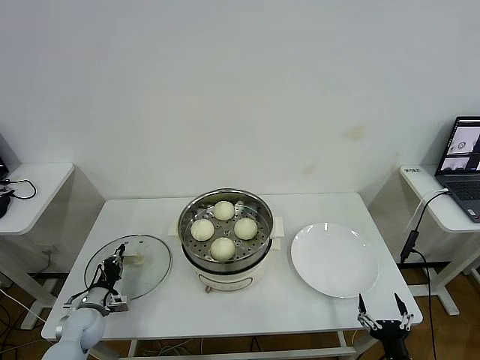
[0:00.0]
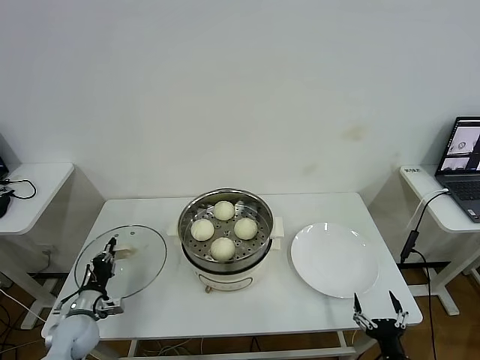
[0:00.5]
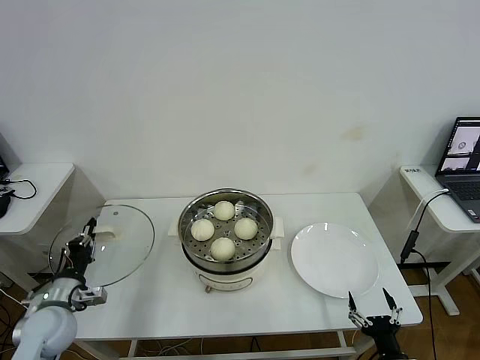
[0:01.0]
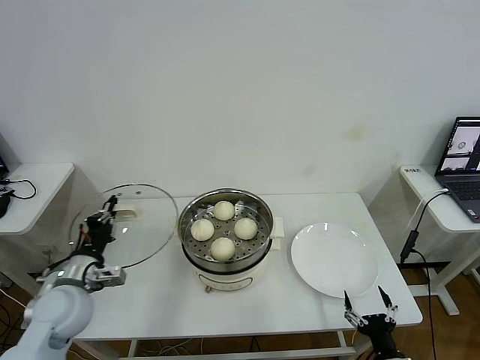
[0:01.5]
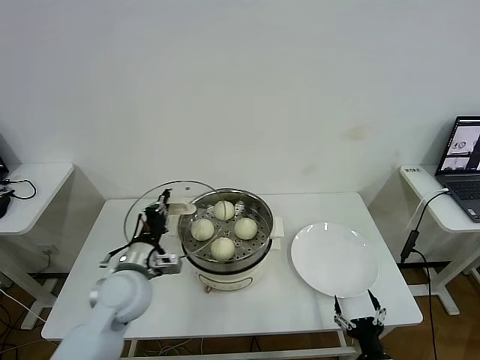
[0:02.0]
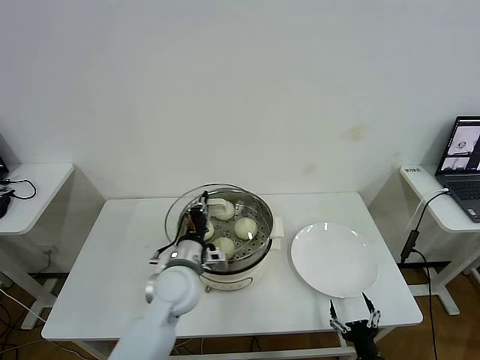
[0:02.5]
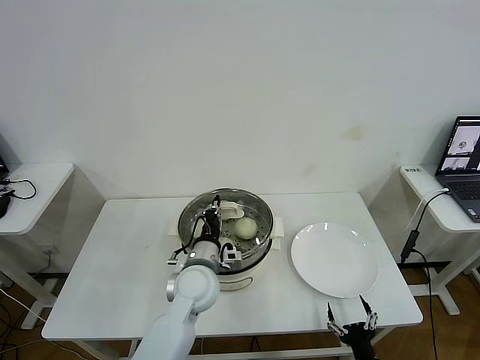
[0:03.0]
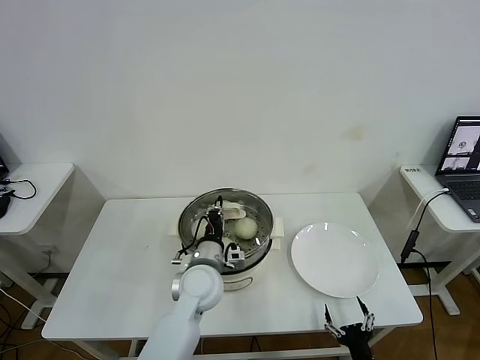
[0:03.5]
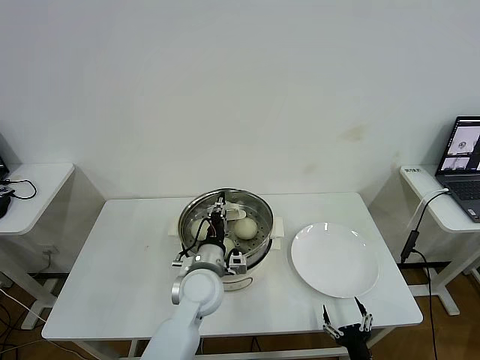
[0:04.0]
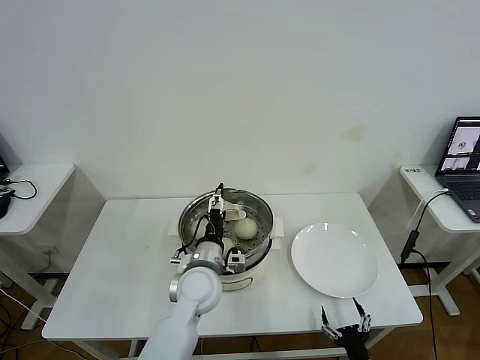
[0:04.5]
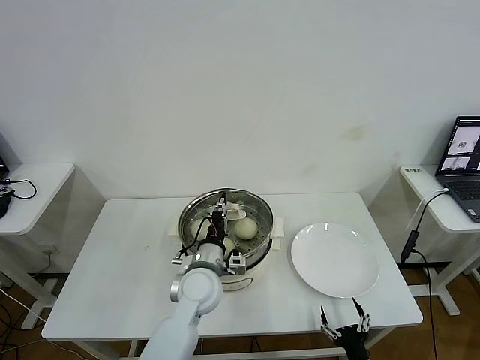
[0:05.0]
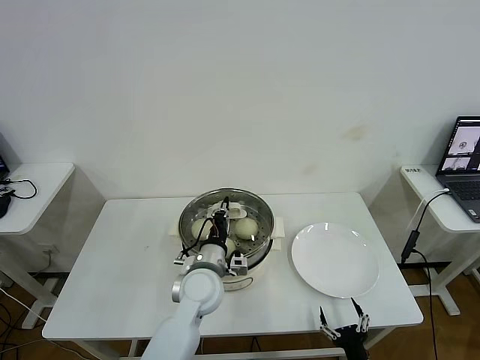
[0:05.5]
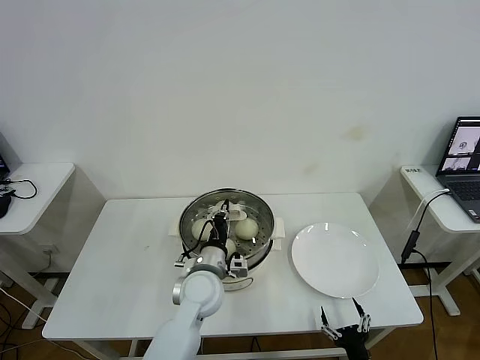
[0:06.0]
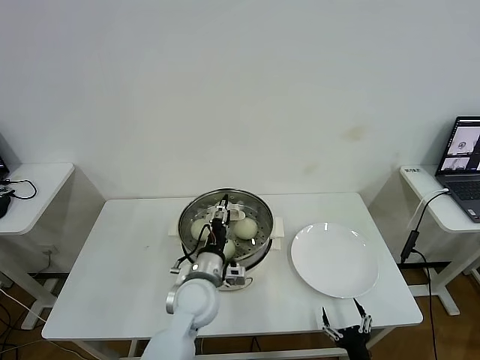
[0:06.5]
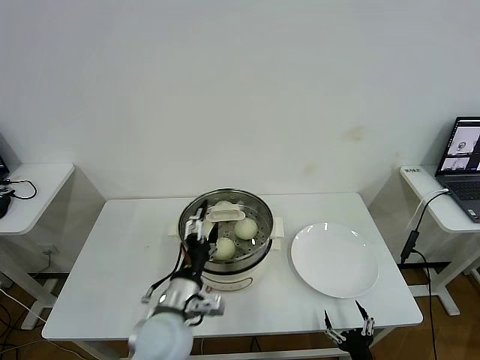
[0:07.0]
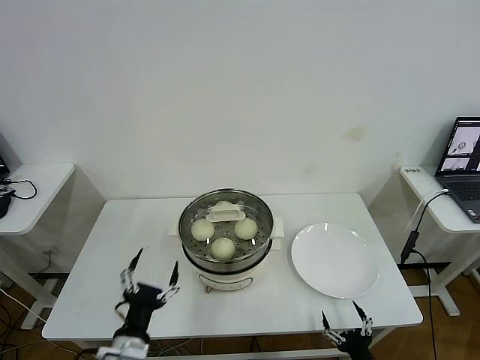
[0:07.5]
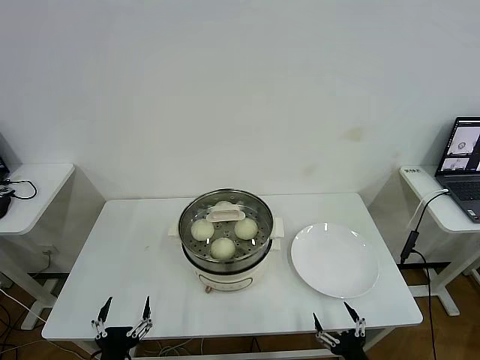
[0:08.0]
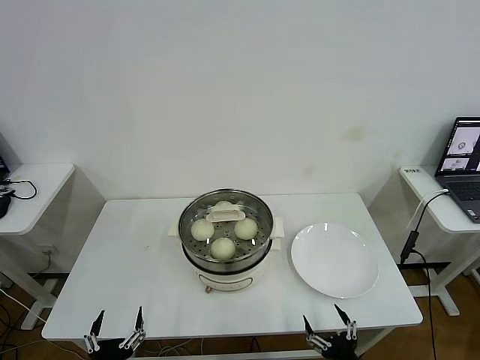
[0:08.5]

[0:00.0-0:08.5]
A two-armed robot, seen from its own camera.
Task of the whole recording: take steamed baozi put them in steamer then cover it.
Step, 0.5 to 6.5 s: Place the pot lid on the steamer with left gripper.
0.0 to 2.0 s: The left gripper shifts some 25 cm upward and to the right.
2.0 to 4.0 s: The left gripper shifts about 15 cm to the right, and opens its fingers.
4.0 to 6.5 s: The left gripper closes, then reopens.
6.5 to 8.5 s: The left gripper is displaced backward and to the left by about 30 cm, and opens up; the right gripper changes place by roughly 5 cm.

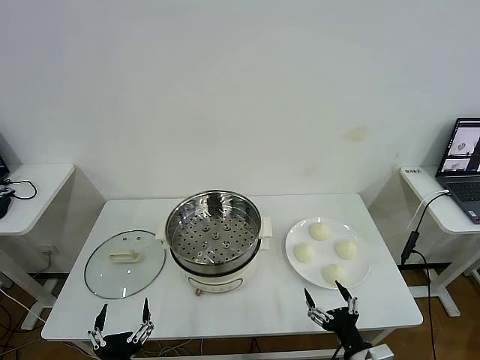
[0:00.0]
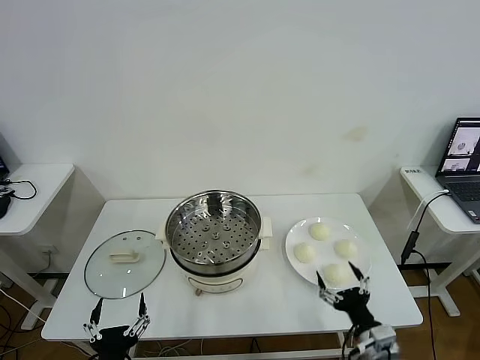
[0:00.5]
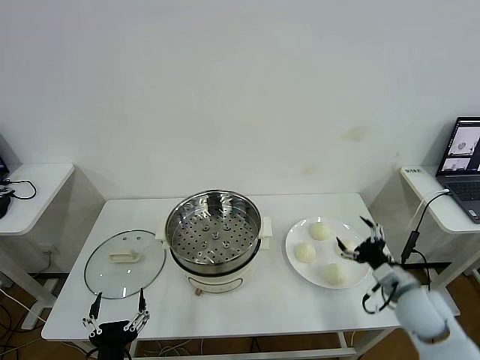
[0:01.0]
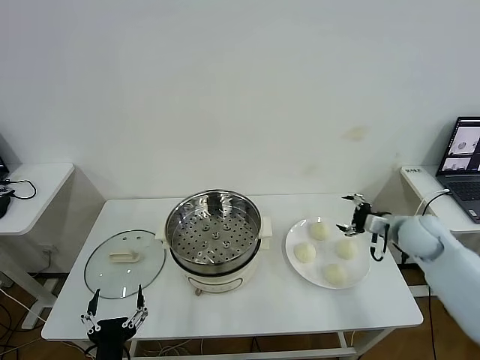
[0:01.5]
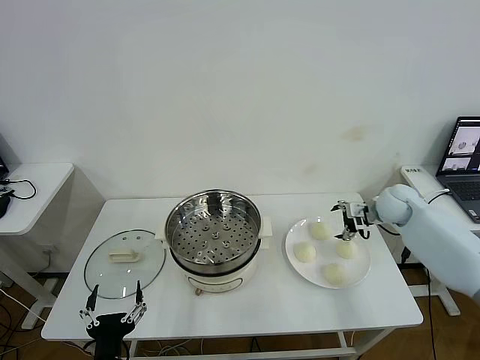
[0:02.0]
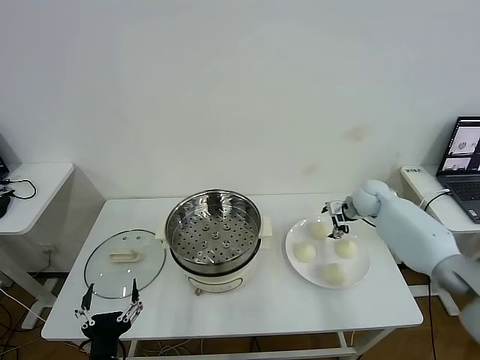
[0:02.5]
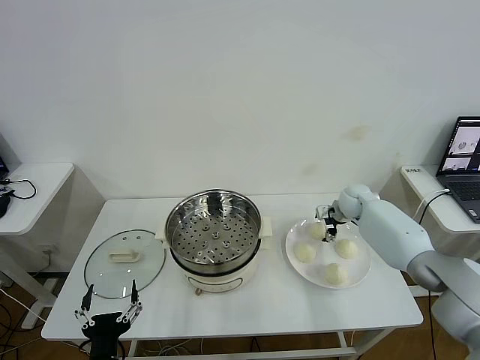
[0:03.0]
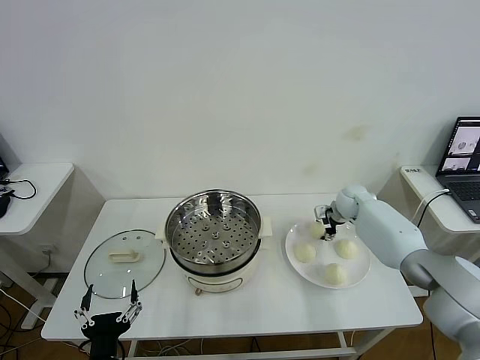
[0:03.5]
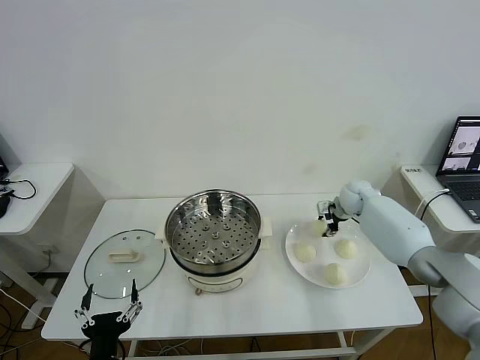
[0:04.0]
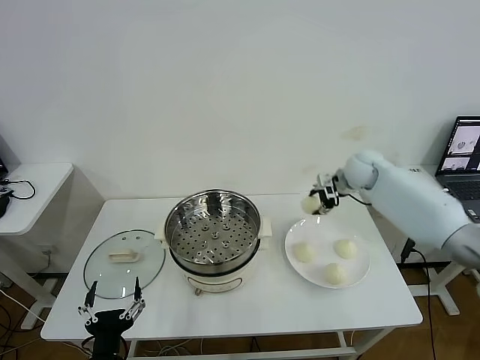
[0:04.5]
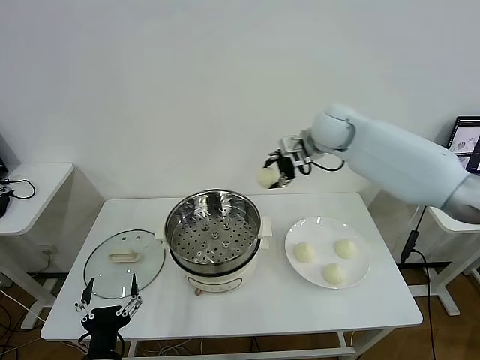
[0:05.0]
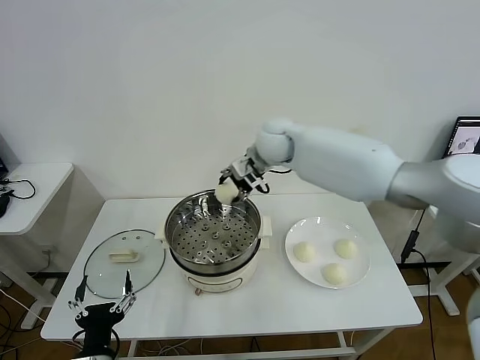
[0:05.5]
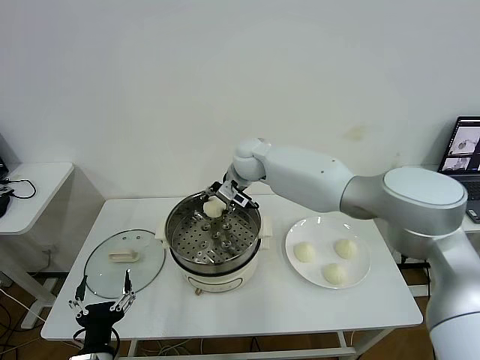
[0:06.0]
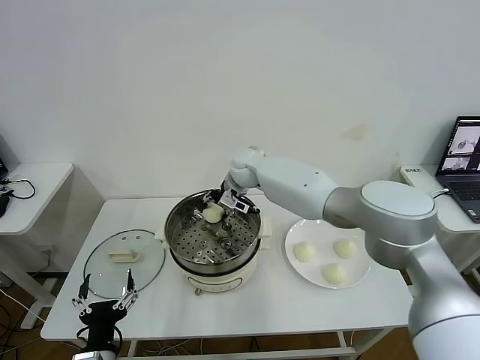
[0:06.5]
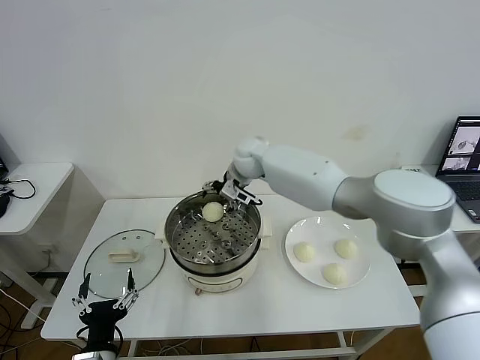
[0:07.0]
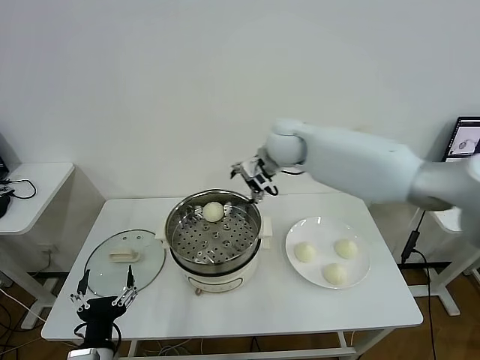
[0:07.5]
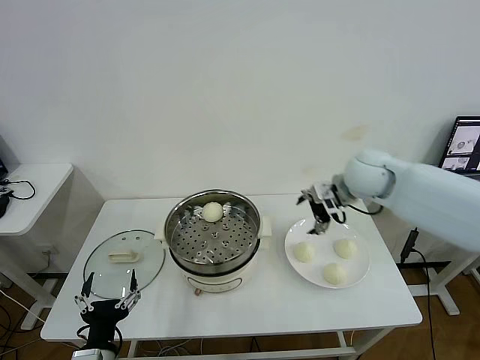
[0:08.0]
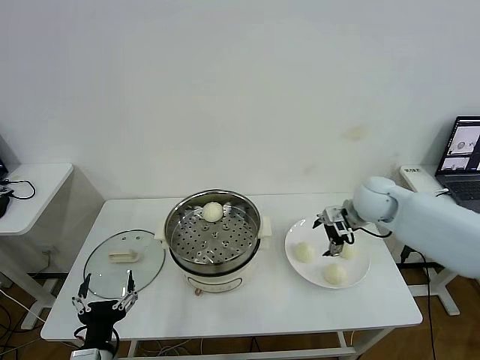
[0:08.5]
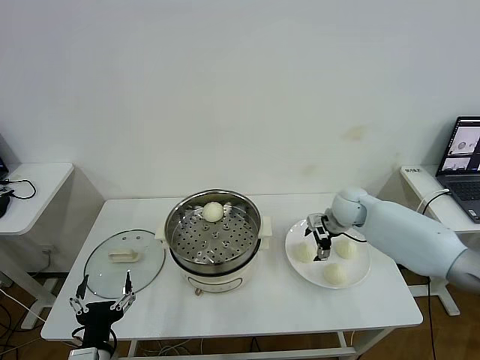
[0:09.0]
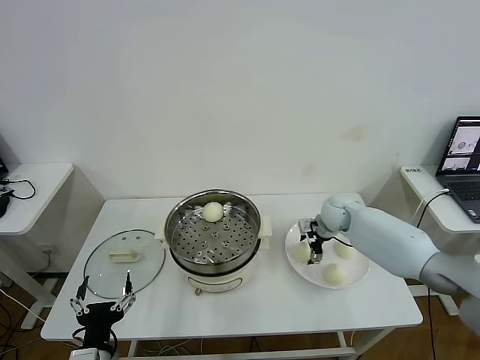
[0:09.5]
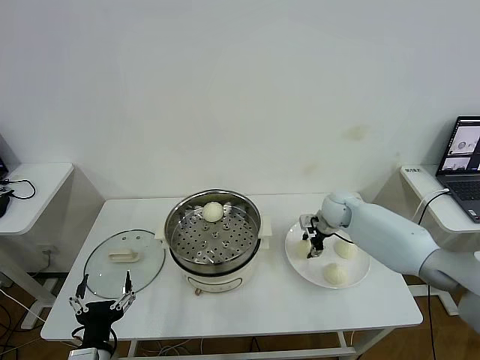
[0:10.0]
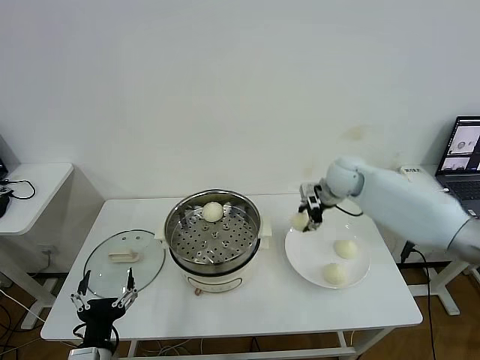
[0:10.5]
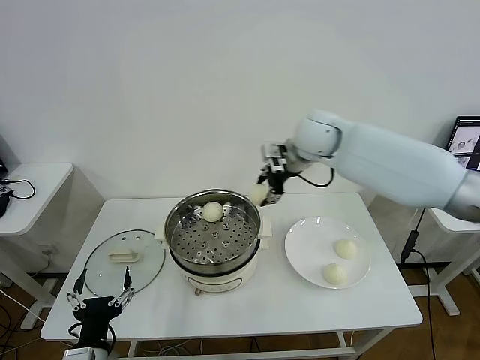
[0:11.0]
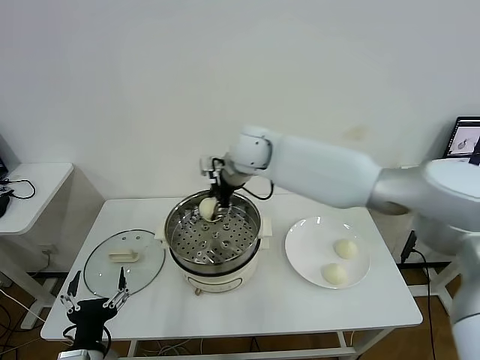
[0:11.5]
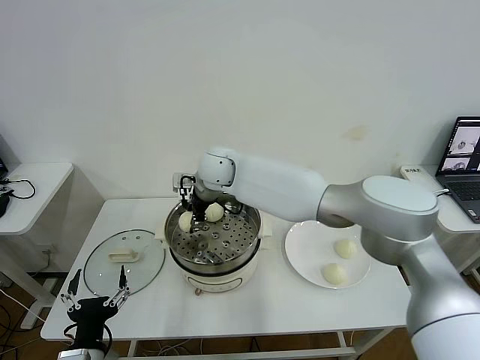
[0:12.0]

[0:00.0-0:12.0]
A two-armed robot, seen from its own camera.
Task of the whole recording: take steamed baozi put them in steamer then cover it.
Step, 0.0 to 3.5 s: Grasp the baozi in the plate with right gripper.
Step, 4.0 to 7.0 s: Place the baozi on the steamer with right gripper.
Step, 7.5 to 9.5 s: Grasp the baozi in the plate with right gripper.
2.0 to 4.0 s: The right gripper travels forward and to the left by roughly 10 cm, and closes its fingers.
4.0 to 6.0 s: The right gripper moves to the left, about 30 cm.
6.0 to 8.0 s: The right gripper moves to the right and backward, some 30 cm, and opens.
8.0 to 10.0 s: The right gripper goes about 15 cm downward and forward, and closes.
10.0 to 12.0 s: The right gripper heads to the left and upward, covering some 35 cm.

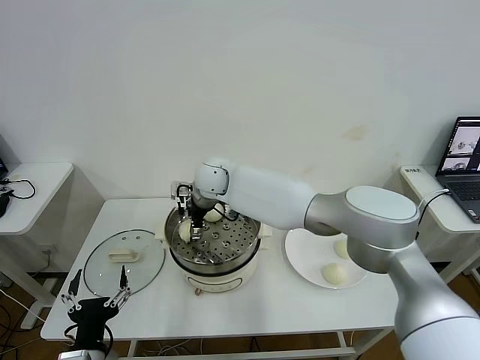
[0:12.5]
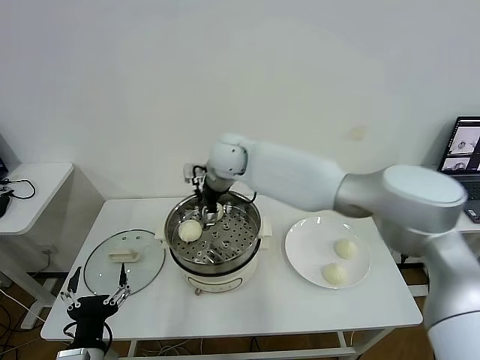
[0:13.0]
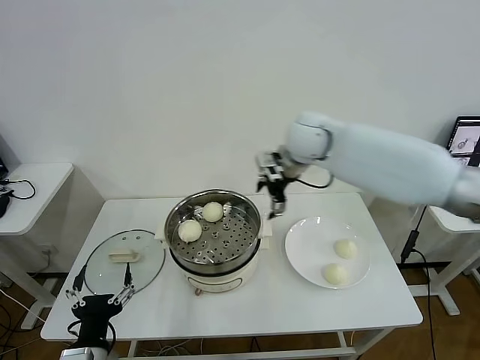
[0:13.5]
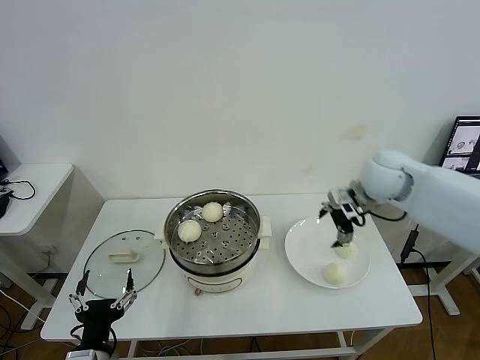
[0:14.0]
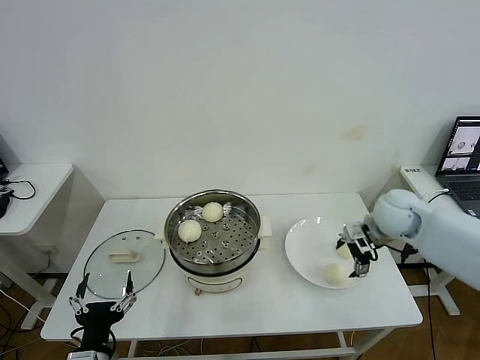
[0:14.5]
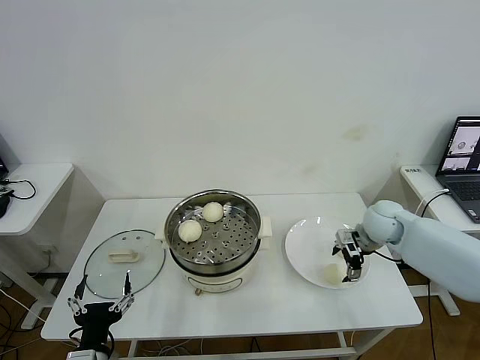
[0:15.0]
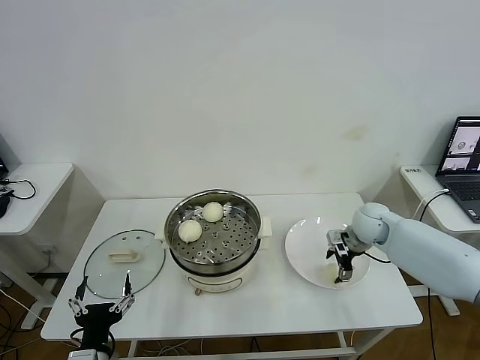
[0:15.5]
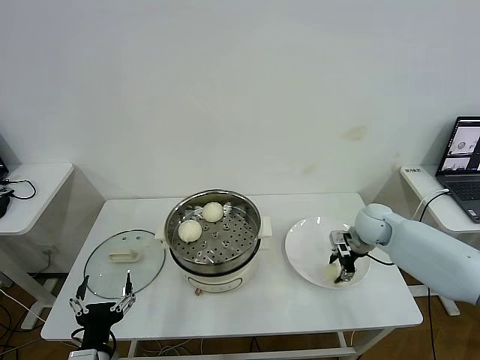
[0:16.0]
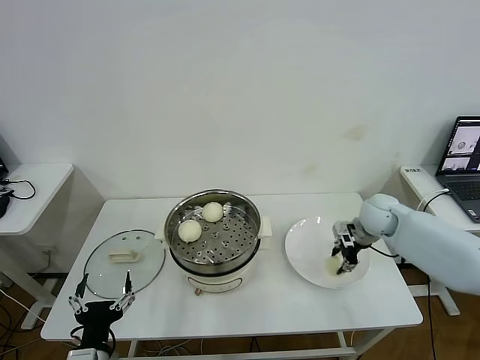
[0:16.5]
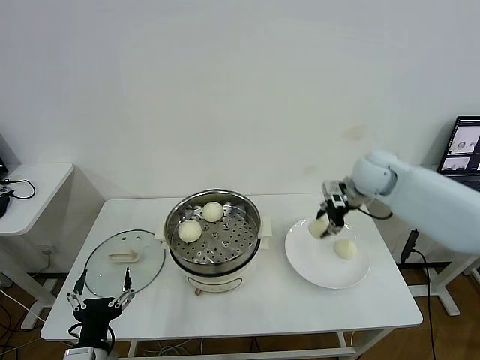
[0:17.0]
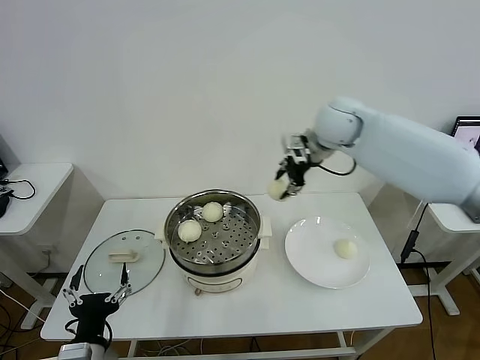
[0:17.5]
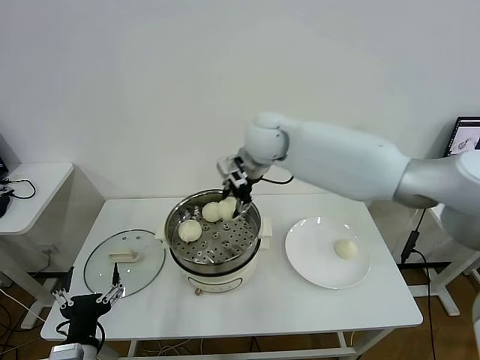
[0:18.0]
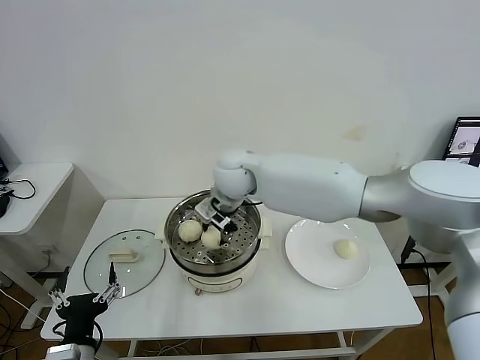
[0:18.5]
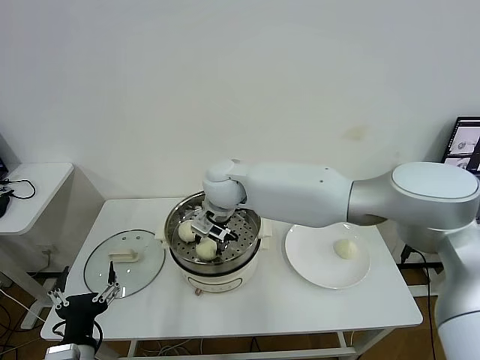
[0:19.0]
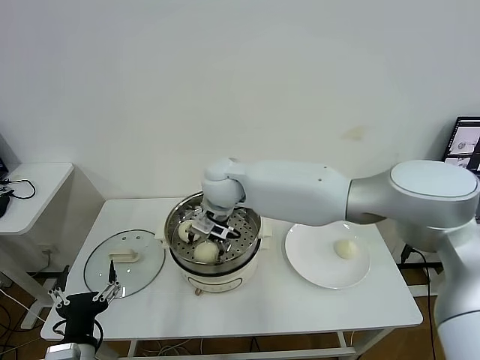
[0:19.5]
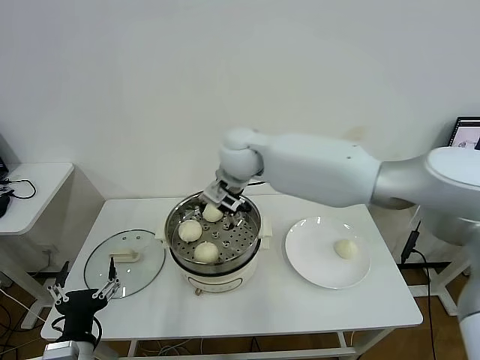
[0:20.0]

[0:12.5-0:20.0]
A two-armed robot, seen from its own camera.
Task of the whole recording: take steamed baozi put them in steamer then cover it.
Step, 13.0 to 16.0 s: Grasp the baozi in the plate with right gripper.
Step, 16.5 to 19.5 s: Place the baozi on the steamer with right gripper.
12.5 to 14.5 s: The right gripper shifts roughly 40 cm to the right.
14.5 to 16.5 s: The right gripper moves about 5 cm, and closes.
16.5 to 18.0 s: The right gripper heads to the left and upward, covering approximately 35 cm.
18.0 to 20.0 s: The right gripper moves some 10 cm downward and comes back, and opens up.
